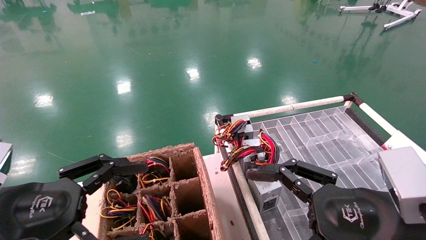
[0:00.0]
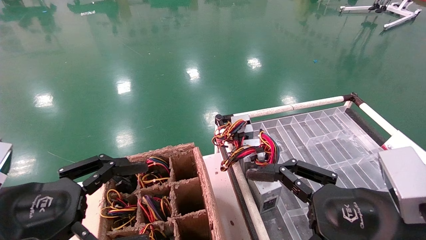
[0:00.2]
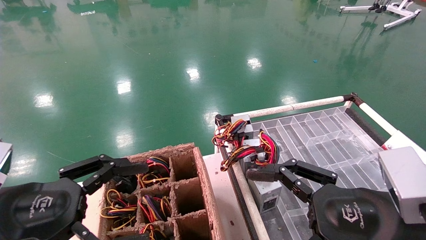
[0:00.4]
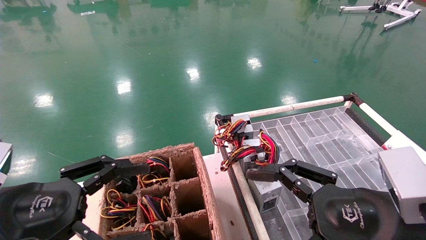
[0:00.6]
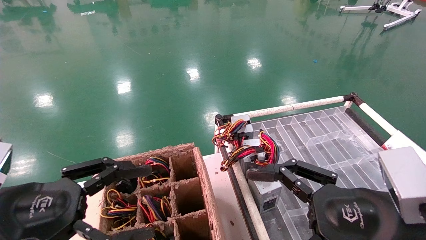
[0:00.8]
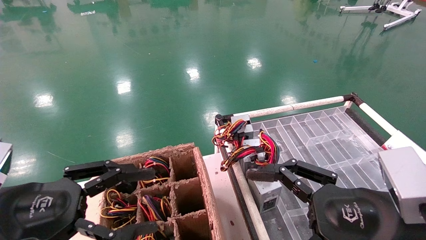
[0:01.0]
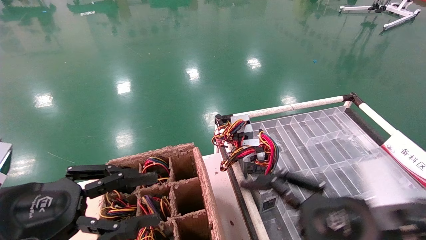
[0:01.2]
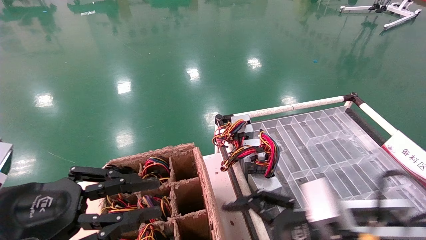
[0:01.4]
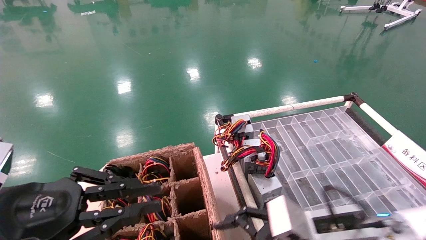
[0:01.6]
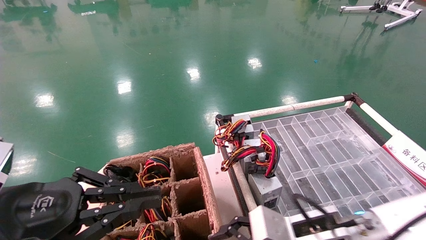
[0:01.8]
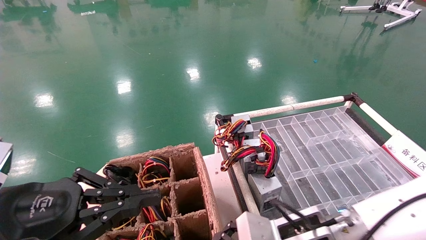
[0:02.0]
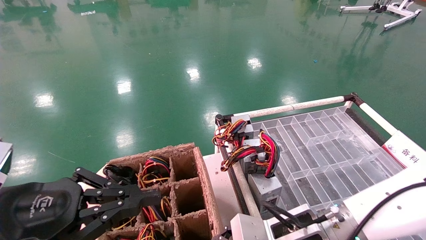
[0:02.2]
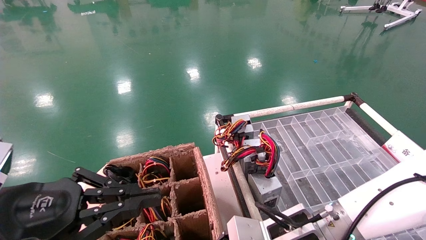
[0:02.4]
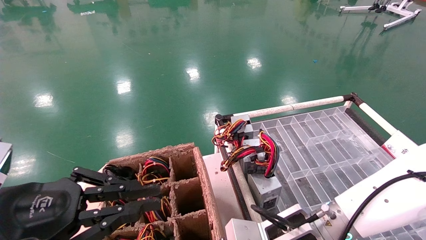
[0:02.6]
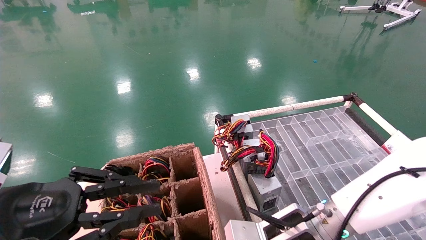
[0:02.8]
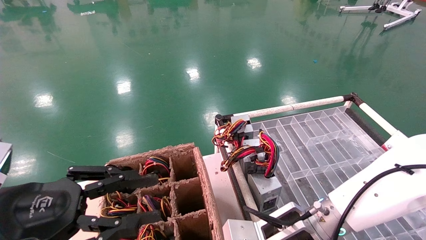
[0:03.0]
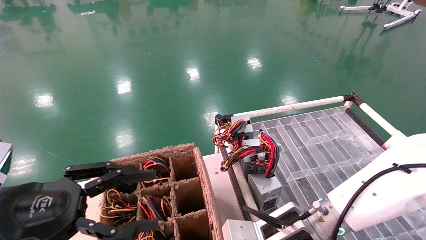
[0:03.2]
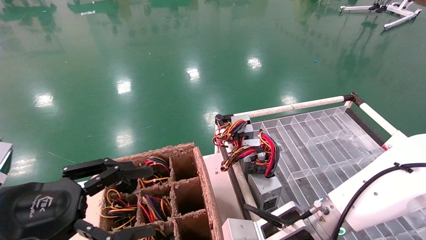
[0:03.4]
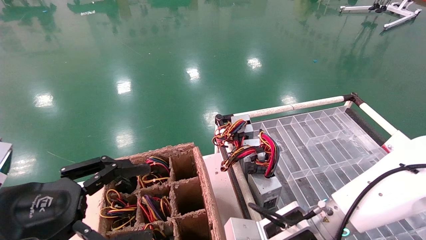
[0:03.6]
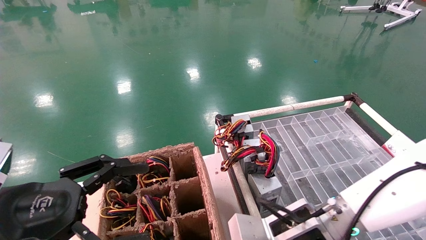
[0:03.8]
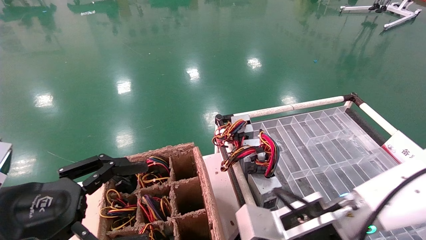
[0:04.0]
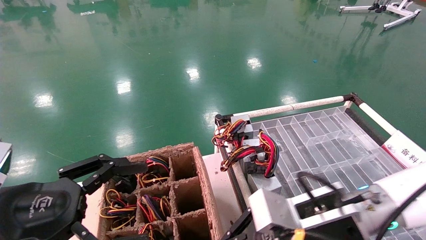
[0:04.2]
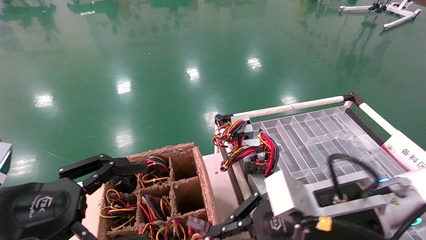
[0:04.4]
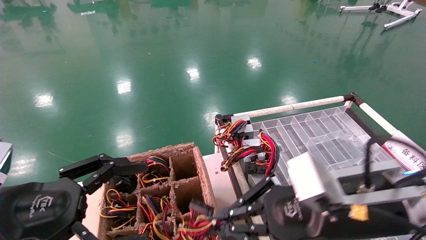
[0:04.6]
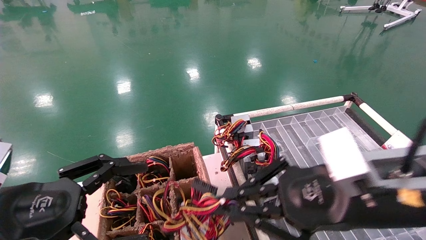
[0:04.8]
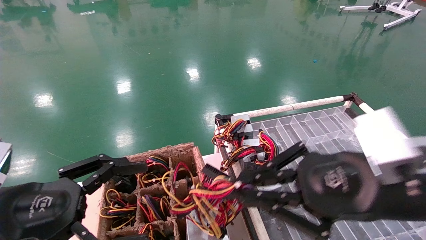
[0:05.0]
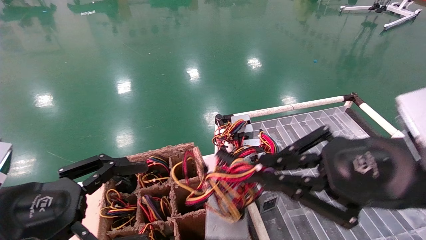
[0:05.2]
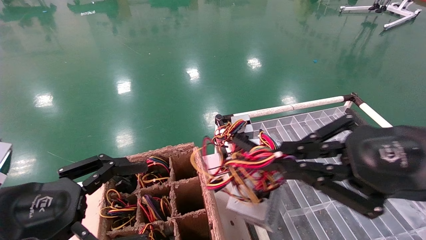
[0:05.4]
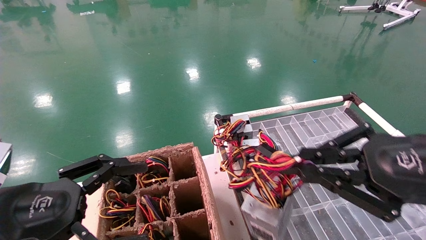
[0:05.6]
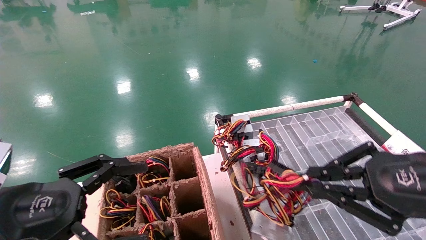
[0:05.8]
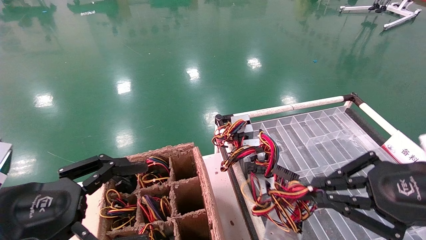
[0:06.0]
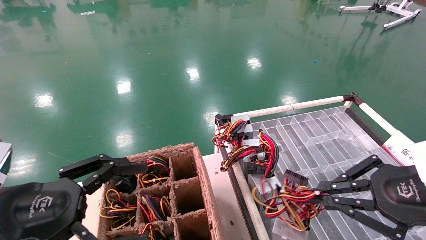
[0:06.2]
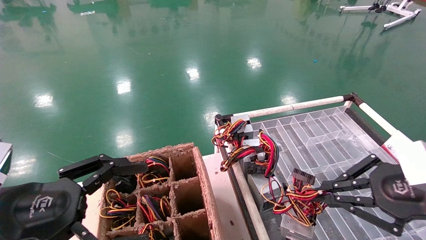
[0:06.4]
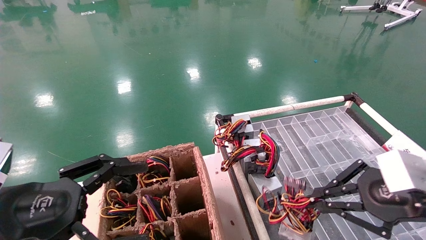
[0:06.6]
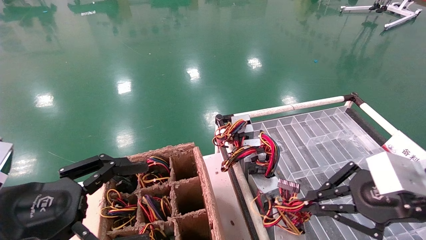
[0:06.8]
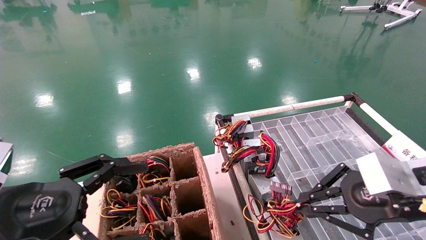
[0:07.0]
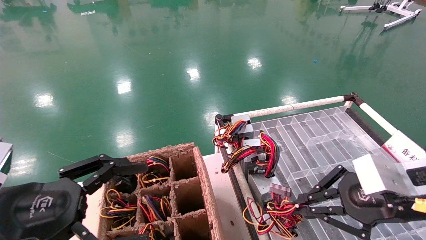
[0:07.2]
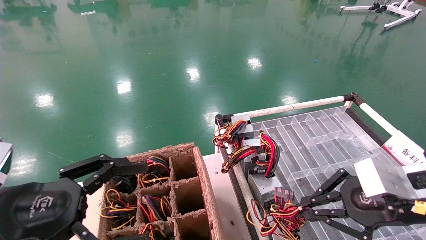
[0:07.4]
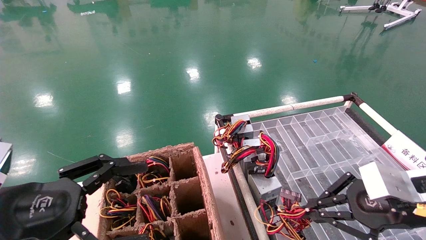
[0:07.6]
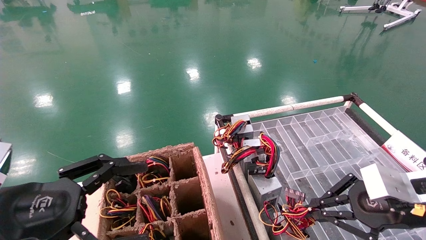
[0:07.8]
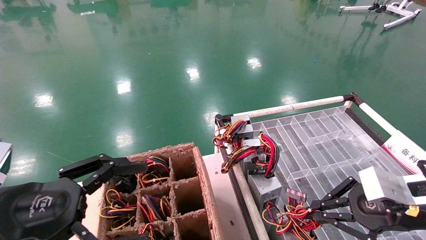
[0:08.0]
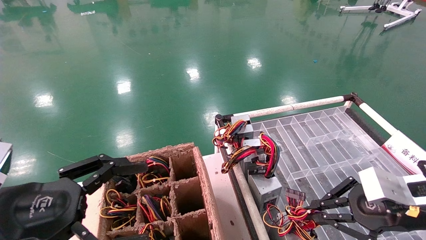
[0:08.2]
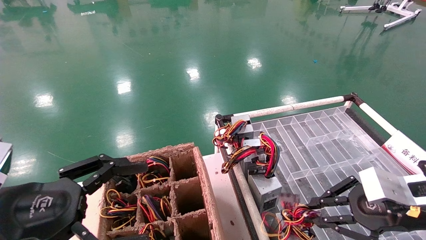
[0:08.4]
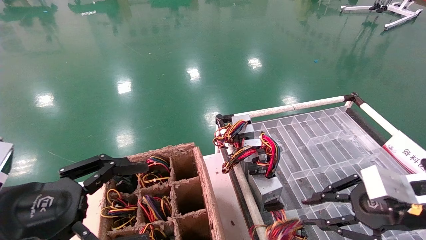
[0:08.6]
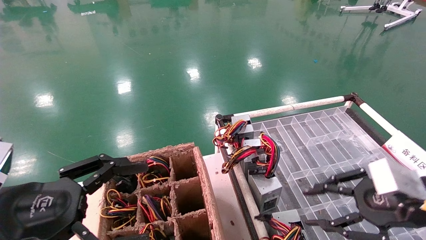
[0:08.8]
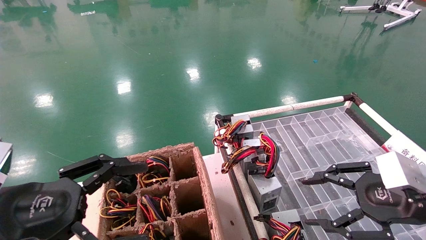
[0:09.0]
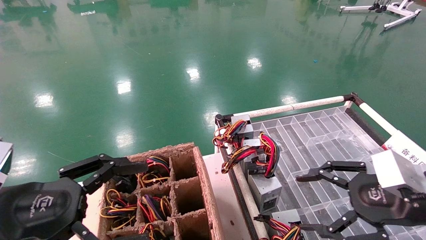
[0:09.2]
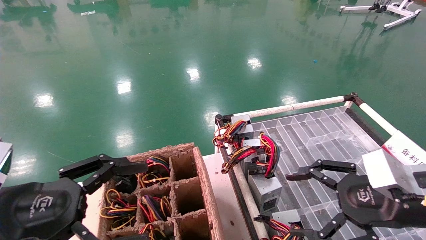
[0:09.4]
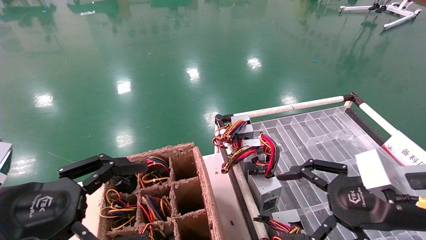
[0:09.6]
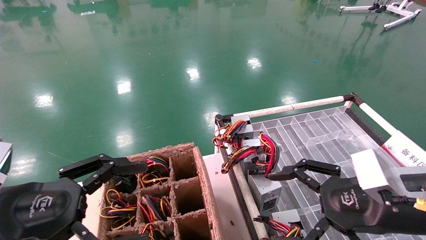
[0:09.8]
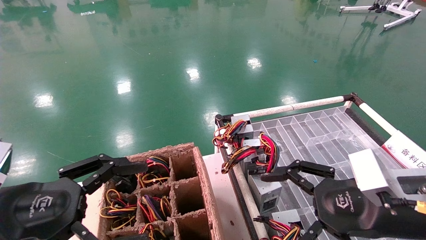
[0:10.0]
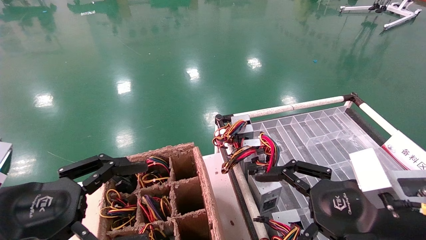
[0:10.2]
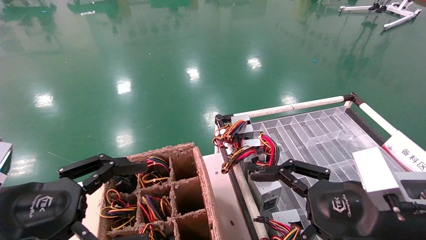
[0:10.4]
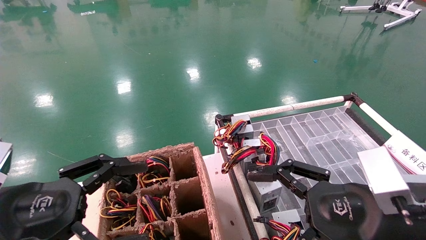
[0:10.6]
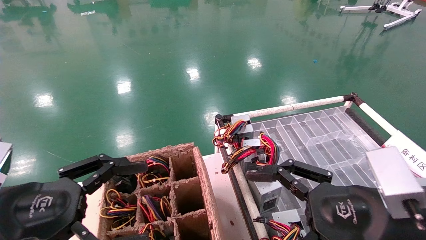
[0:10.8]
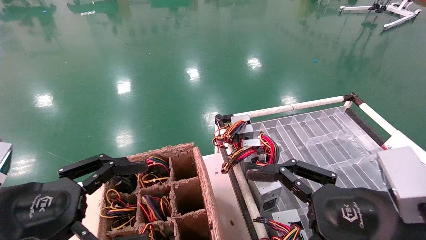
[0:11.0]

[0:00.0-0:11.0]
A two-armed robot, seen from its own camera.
Step, 0:00.8 to 0:03.6: Grab and lift the power supply from the large box.
Step, 0:03.8 to 0:08.6: Place the power supply on the operating table.
0:00.0 to 0:01.6: The right gripper shifts about 10 cm downward, forward and to the left; the left gripper closes its fingers.
0:01.6 to 0:03.2: The right gripper shifts by some 5 cm, and closes its fingers.
0:03.2 to 0:04.8: The right gripper is displaced upward, backward and to the right by roughly 15 cm. Meanwhile the left gripper opens up.
0:04.8 to 0:06.2: The right gripper moves to the right, about 10 cm.
0:06.2 to 0:07.8: The right gripper heads forward, covering approximately 5 cm.
0:07.8 to 0:09.4: The right gripper opens its fingers.
0:09.4 to 0:11.0: The right gripper moves to the left, roughly 5 cm.

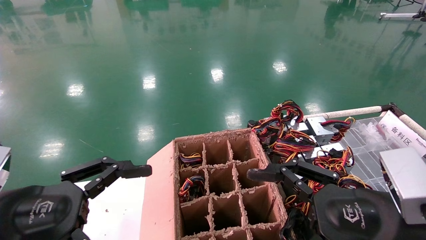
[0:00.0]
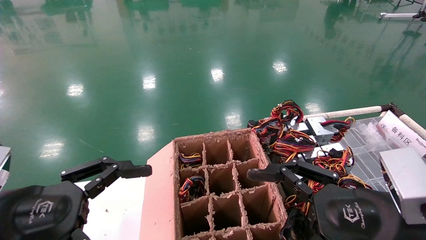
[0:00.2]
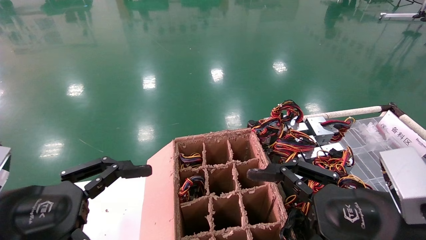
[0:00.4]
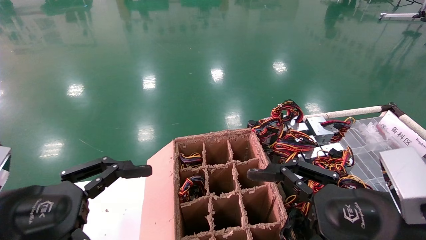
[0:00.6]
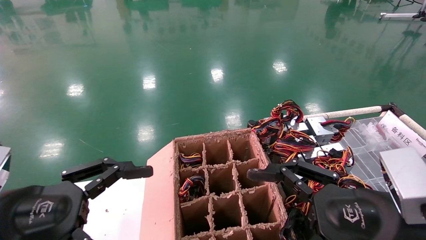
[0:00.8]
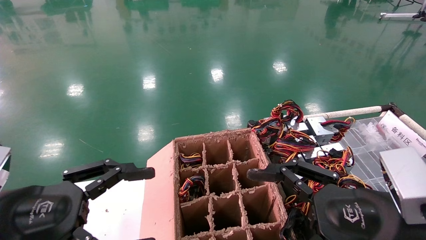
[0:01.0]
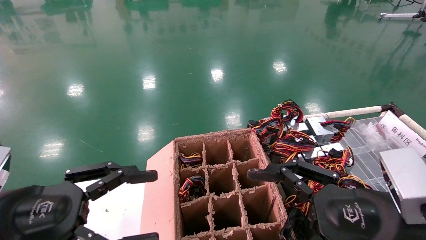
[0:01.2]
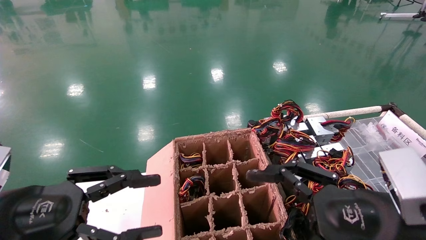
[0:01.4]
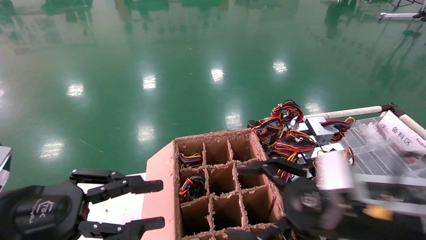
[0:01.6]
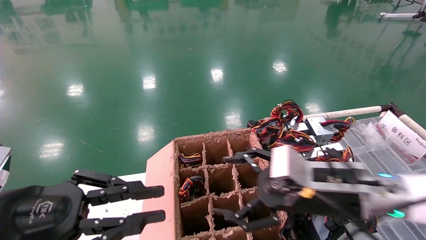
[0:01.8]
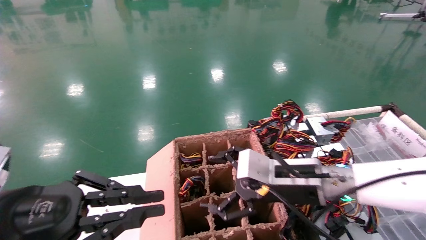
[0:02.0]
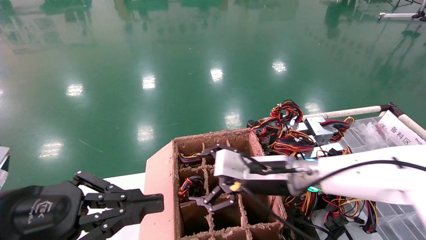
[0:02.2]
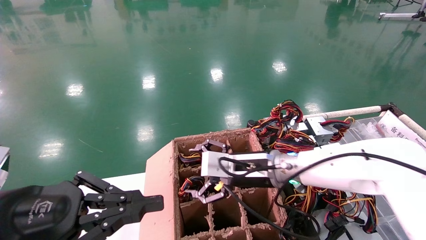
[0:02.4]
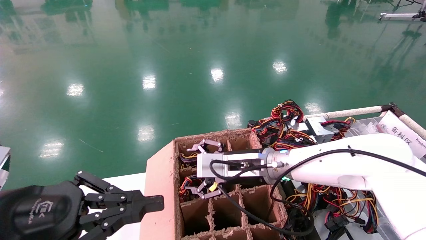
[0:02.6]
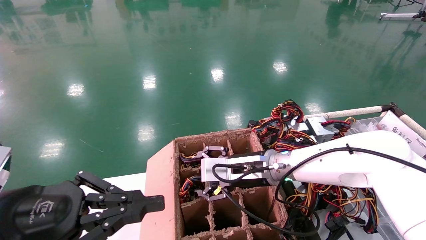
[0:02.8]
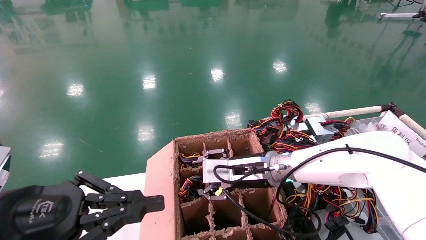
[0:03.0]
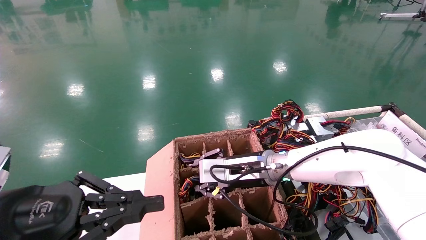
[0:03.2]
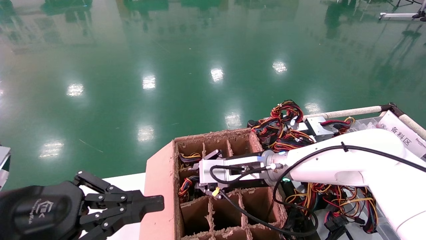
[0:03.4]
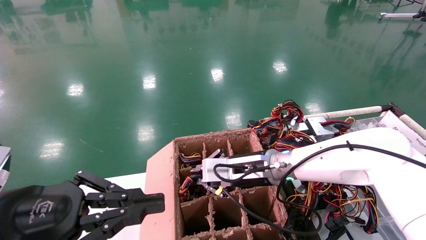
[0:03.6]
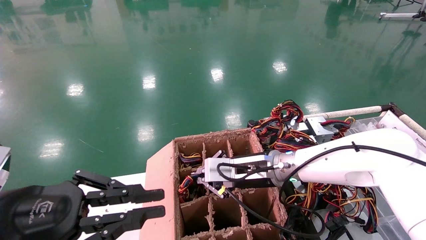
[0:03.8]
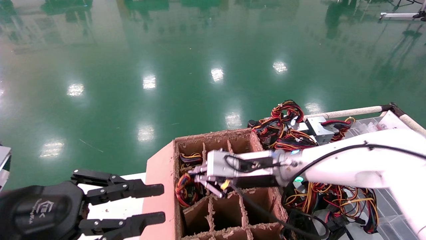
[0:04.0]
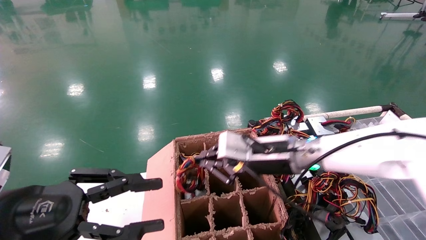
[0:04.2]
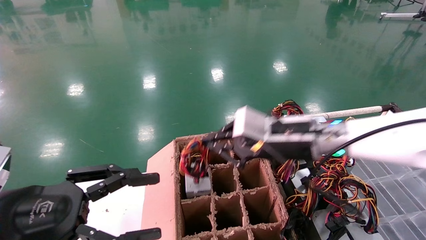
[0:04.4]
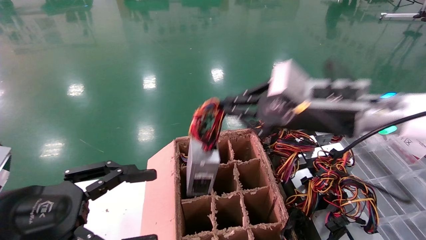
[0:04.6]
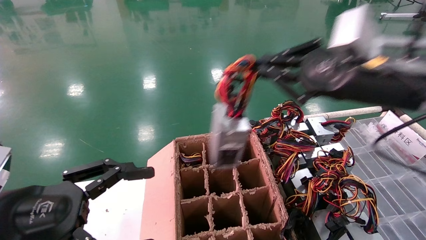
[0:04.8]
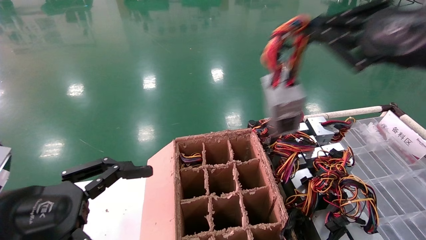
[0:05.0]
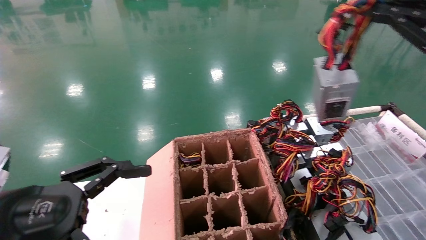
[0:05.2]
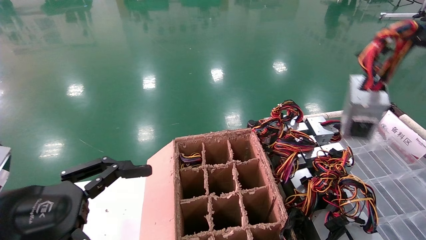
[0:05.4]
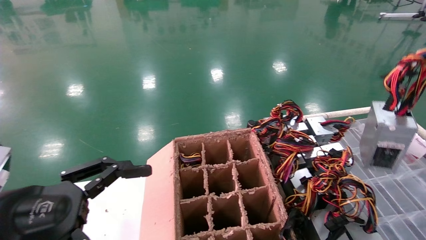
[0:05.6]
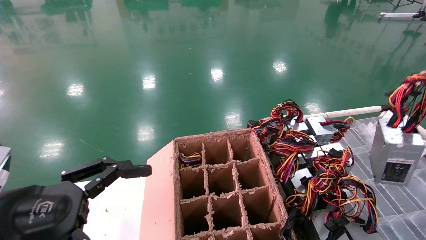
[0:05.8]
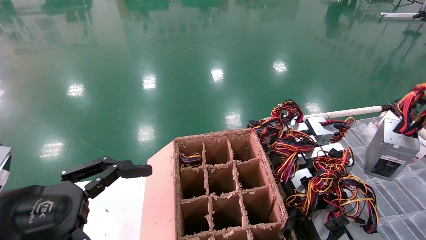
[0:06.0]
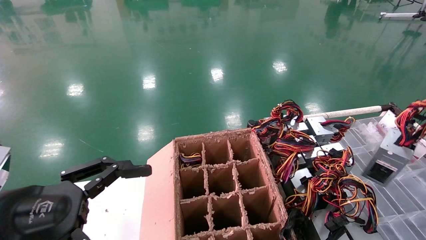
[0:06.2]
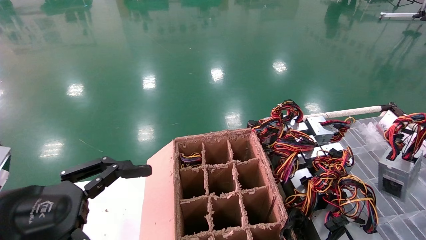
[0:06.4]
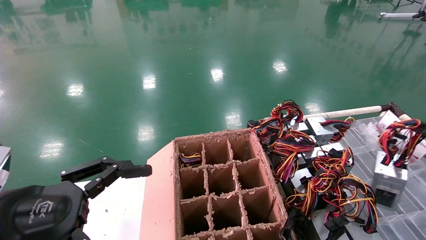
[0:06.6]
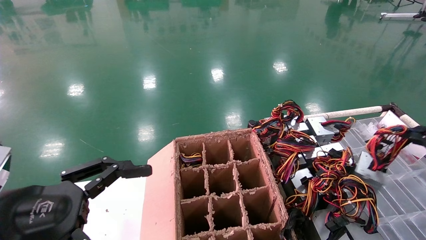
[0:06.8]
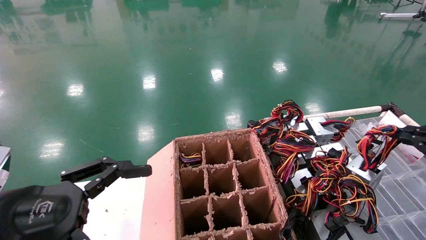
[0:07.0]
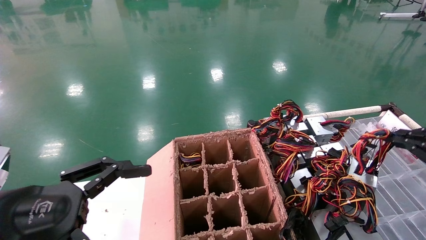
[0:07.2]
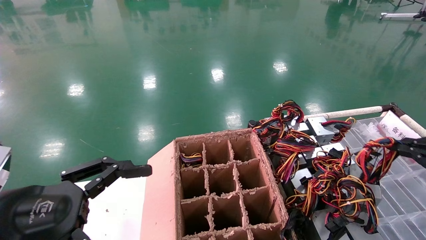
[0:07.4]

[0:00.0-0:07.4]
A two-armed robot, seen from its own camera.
Step, 0:02.4 to 0:04.0: Grab and lift the power supply from the large box.
0:00.0 to 0:01.4: The grippers stay close to where they were, moving slightly.
0:01.4 to 0:03.0: The left gripper closes up. Meanwhile the right gripper moves forward and to the left, some 25 cm.
0:03.0 to 0:04.4: The left gripper opens up. Meanwhile the right gripper travels upward, to the right and backward by approximately 15 cm, and closes up.
0:04.4 to 0:06.0: The left gripper opens. Meanwhile the right gripper is displaced to the right by some 35 cm.
0:06.0 to 0:07.4: The right gripper shifts approximately 5 cm downward.
